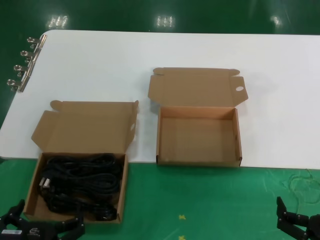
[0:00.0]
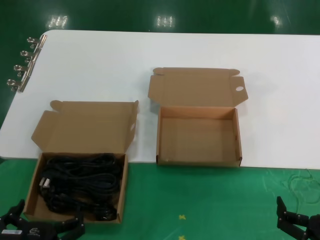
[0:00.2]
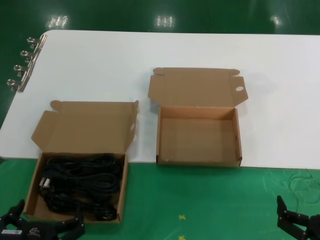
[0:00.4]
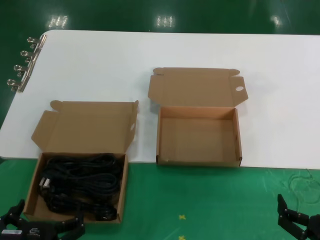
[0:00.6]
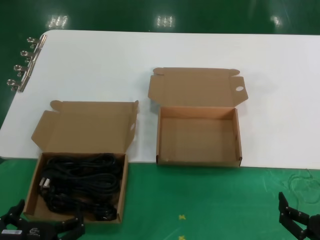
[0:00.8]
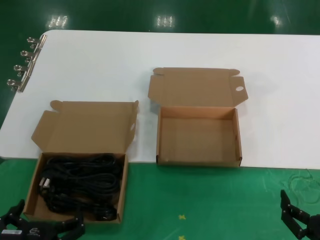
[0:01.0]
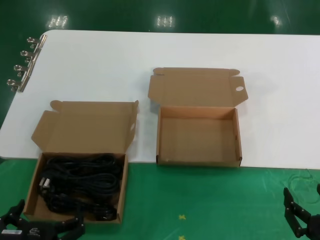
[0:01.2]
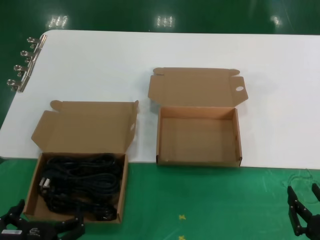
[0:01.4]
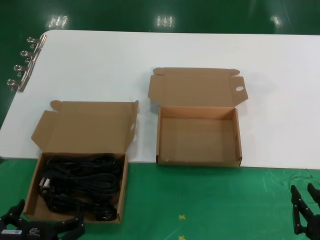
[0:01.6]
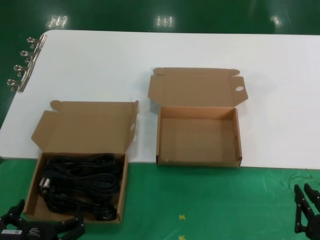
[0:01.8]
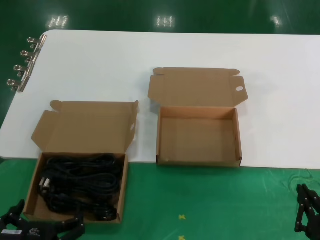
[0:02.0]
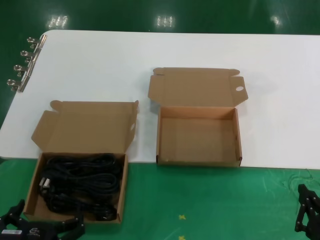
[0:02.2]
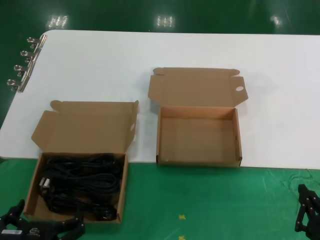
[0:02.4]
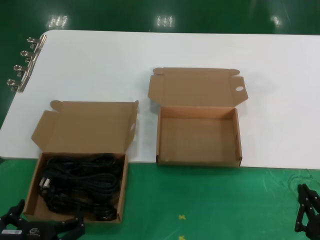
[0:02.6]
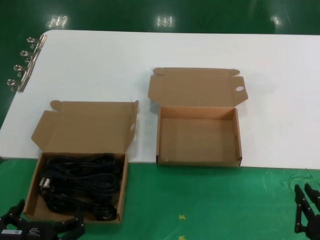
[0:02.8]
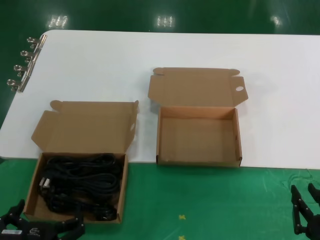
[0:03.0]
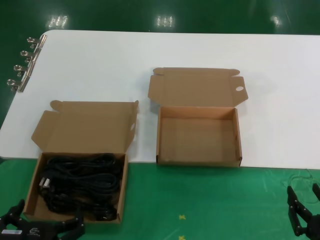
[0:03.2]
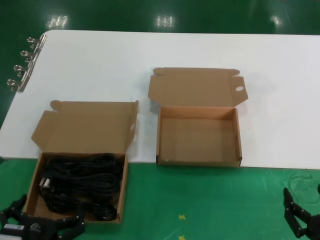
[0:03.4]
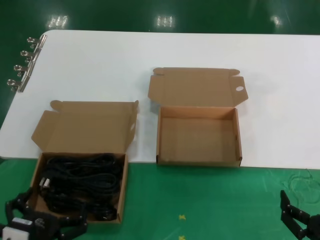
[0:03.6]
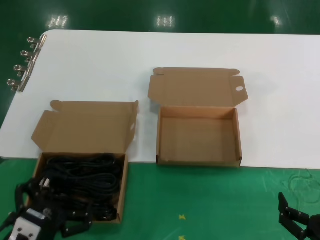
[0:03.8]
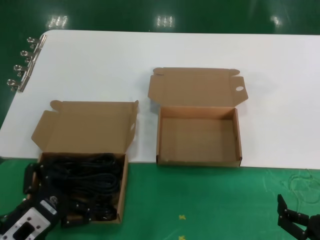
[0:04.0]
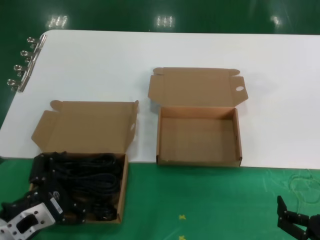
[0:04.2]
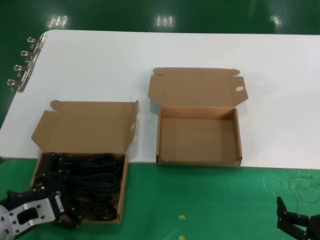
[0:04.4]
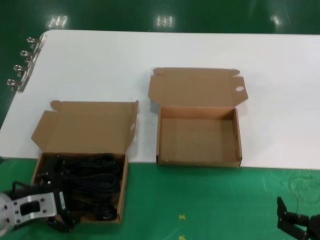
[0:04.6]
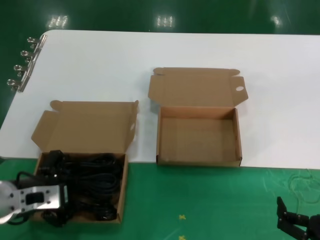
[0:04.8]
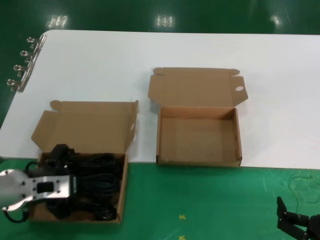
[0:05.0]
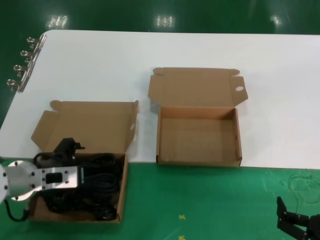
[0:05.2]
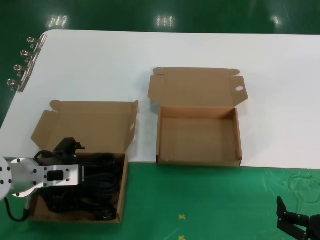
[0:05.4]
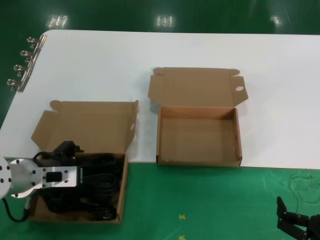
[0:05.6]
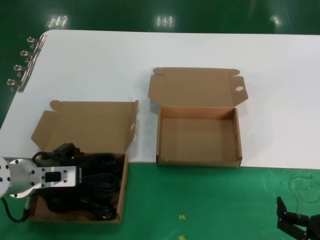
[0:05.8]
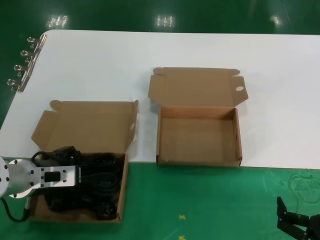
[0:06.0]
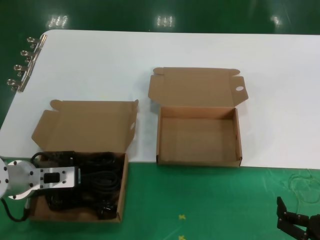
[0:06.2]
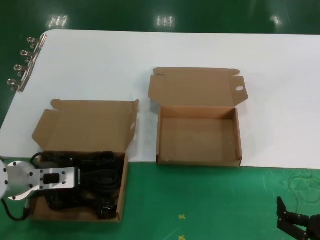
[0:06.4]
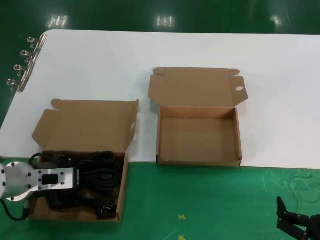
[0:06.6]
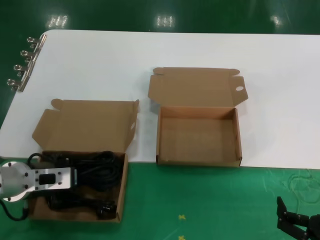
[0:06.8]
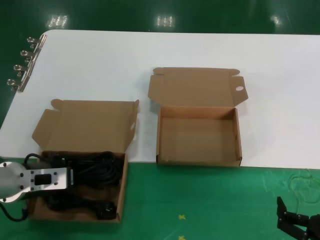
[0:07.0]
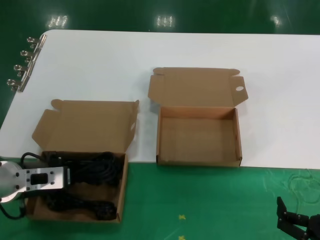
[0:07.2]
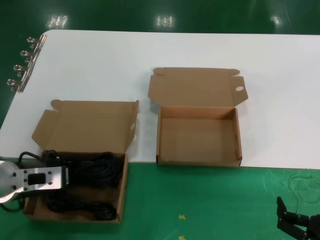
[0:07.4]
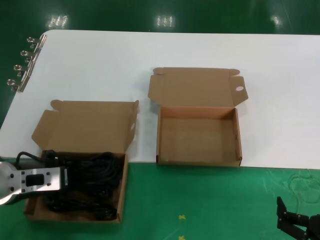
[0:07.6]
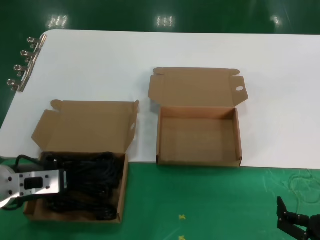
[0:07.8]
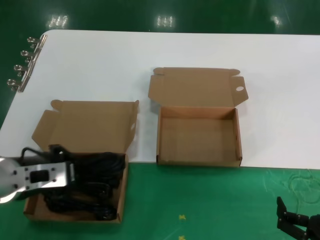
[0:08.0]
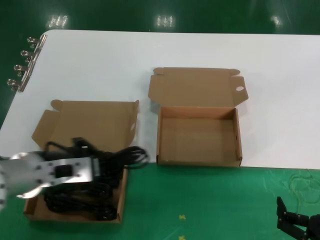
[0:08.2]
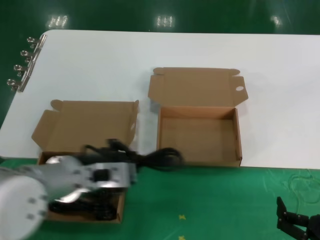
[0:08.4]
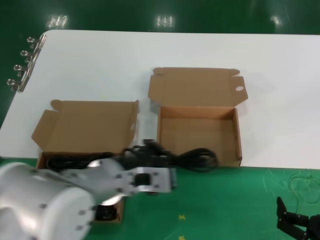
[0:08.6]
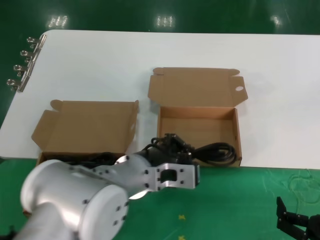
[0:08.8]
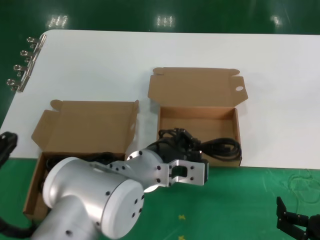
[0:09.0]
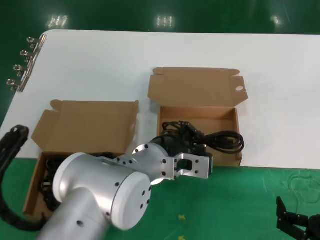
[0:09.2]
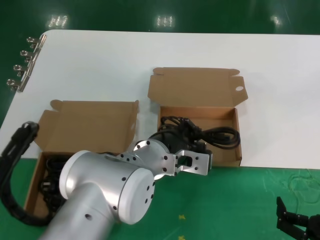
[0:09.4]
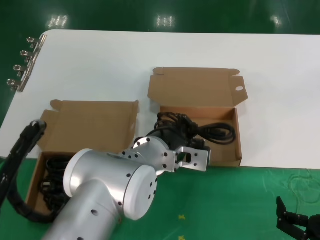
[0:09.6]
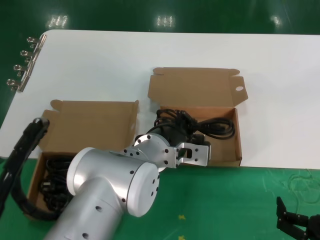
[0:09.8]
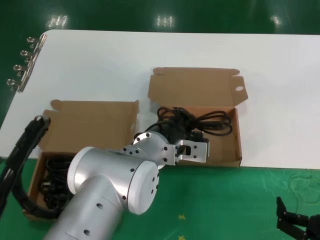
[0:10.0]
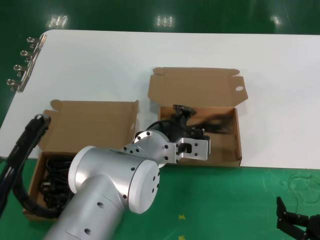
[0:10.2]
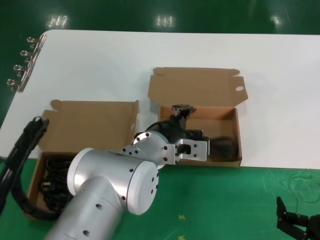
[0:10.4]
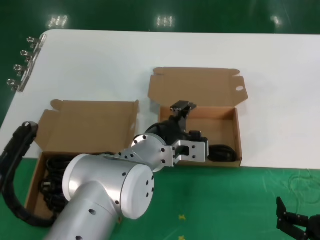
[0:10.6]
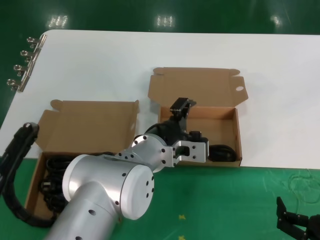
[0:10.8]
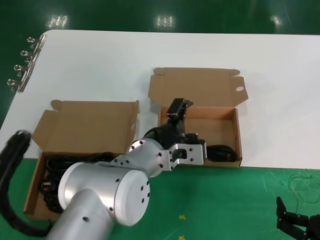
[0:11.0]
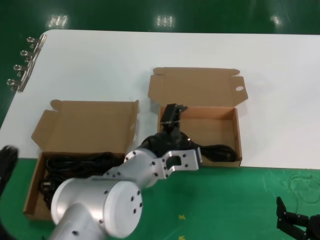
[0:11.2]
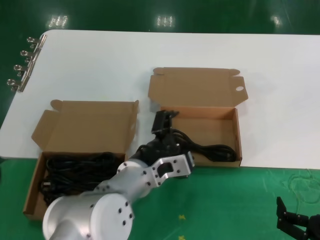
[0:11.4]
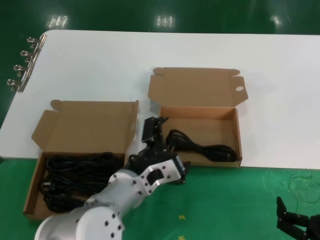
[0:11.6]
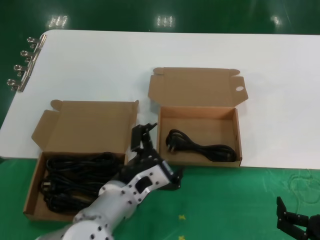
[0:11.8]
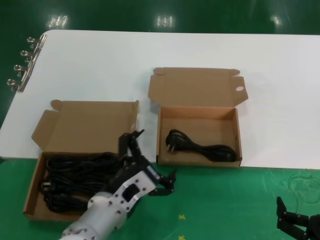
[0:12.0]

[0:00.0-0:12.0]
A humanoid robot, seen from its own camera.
Task of the whole recording: take the parts from the box containing them and put them into an empty box.
Step, 0:00.0 to 0:07.0: Grasp the data cable.
Step, 0:07.4 to 0:11.4: Place the data cable in the another box.
0:00.0 to 0:03.0: Neither hand changes place.
0:03.0 to 0:04.4: The left hand shifts about 15 cm upward, forward and to the left.
0:04.4 to 0:06.0: The left hand shifts some 10 cm forward and upward.
0:06.0 to 0:07.6: The left hand is displaced backward by roughly 5 cm.
0:07.6 to 0:09.0: The left hand travels to the right by about 25 cm.
0:09.0 to 0:10.4: The left hand travels forward by some 5 cm.
0:10.4 to 0:12.0: The left hand is displaced downward, to the left and backward by roughly 15 cm.

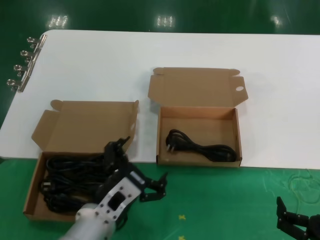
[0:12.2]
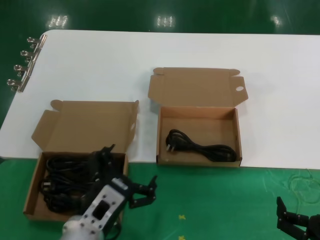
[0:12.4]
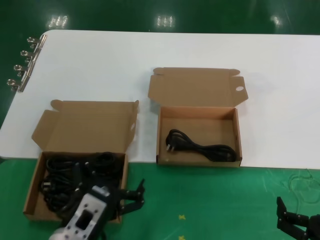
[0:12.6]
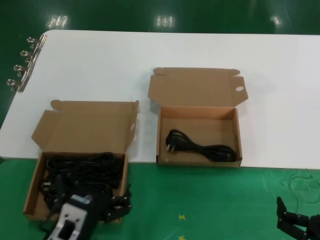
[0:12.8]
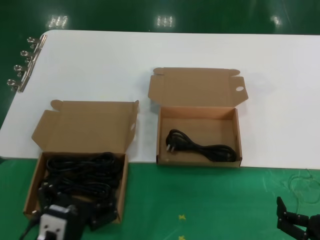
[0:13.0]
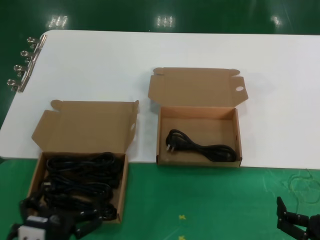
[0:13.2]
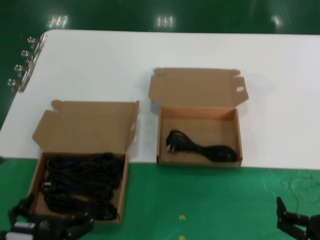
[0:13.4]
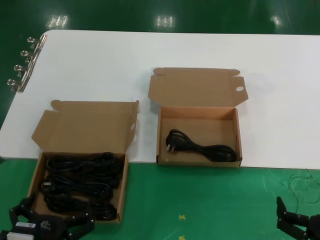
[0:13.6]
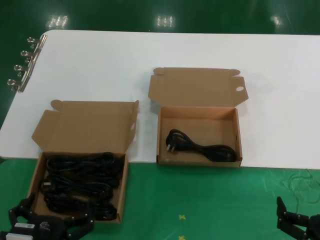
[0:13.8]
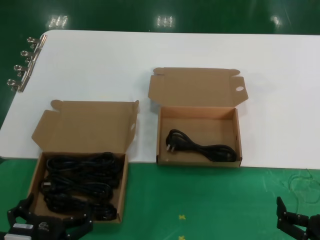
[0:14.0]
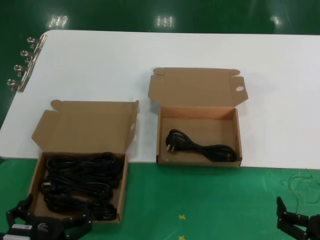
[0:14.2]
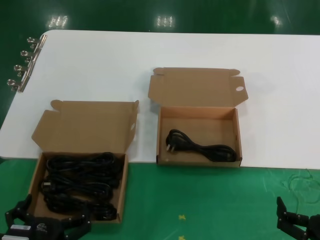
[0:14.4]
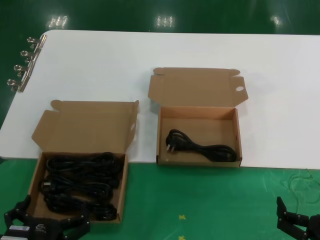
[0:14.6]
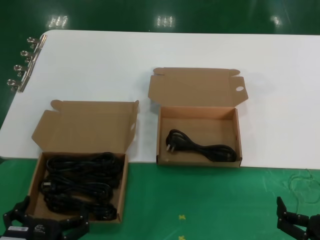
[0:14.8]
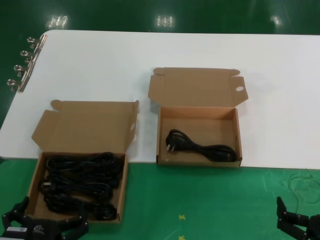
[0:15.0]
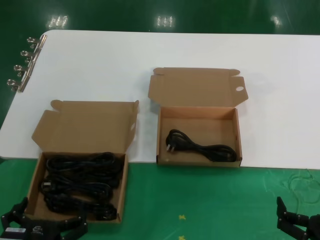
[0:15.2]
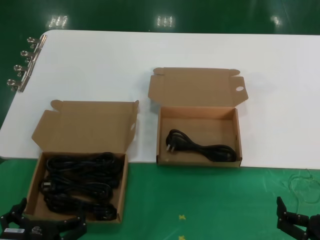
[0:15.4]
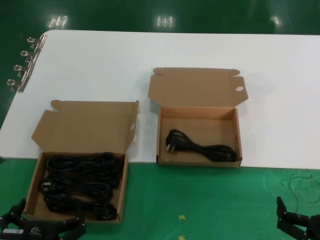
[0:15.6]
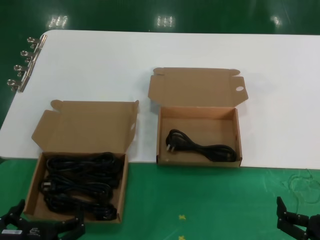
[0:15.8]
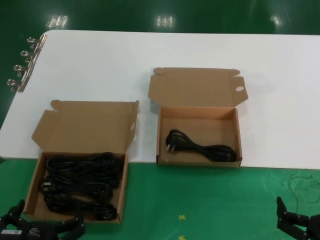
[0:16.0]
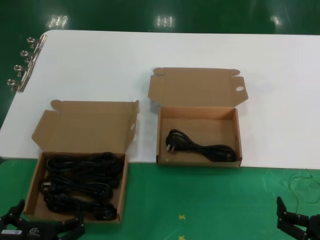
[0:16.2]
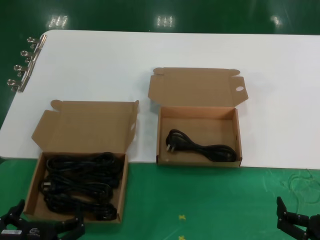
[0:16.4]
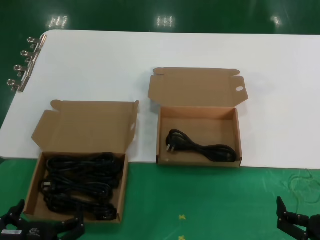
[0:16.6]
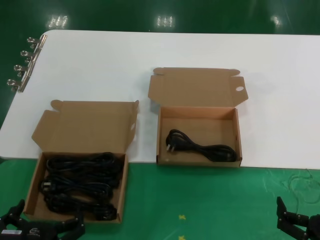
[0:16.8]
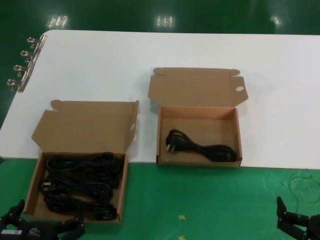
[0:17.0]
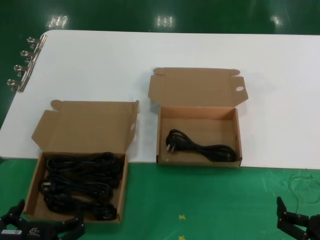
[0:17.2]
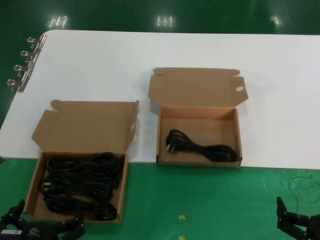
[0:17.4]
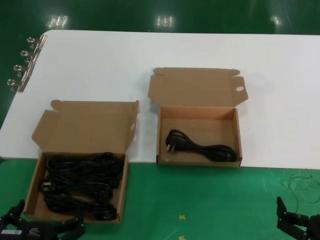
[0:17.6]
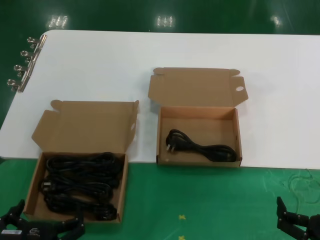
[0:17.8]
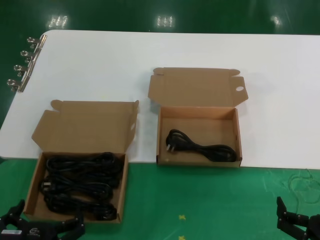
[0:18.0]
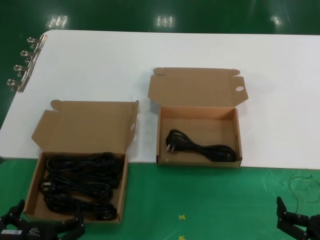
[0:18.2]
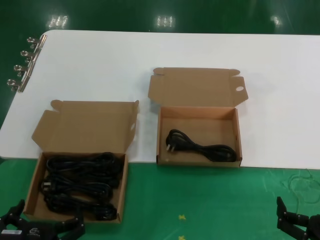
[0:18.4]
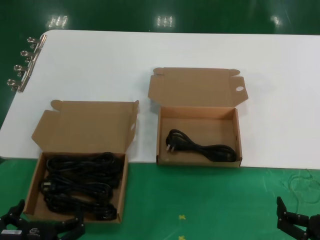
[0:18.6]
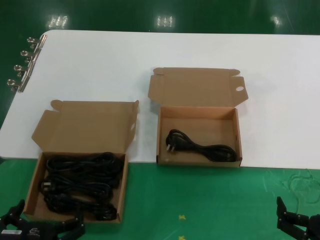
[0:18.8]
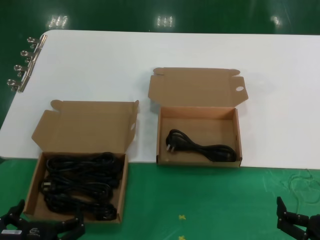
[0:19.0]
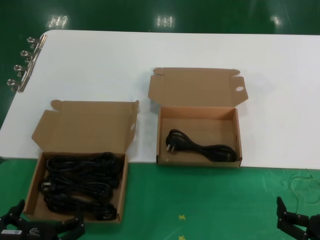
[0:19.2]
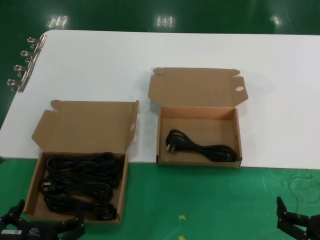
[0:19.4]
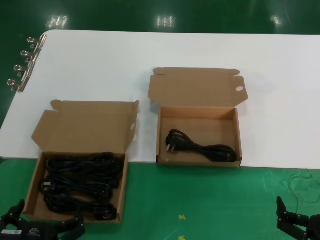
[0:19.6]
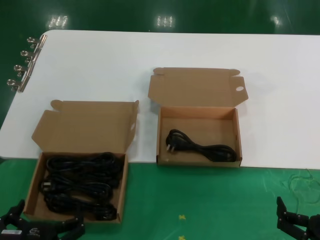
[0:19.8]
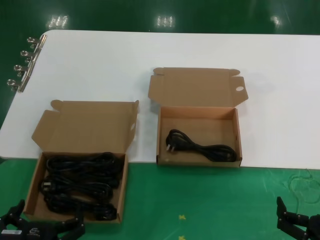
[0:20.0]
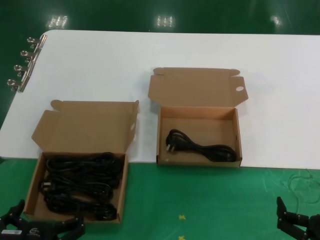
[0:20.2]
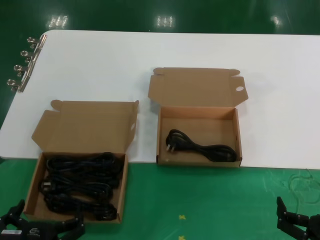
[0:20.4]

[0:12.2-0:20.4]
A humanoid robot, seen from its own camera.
Task of the whole recording: take the parts from the box containing them and put them into an empty box.
0:12.2 to 0:13.8: The left hand heads backward, to the left and downward, covering roughly 15 cm.
0:13.8 to 0:20.4: Both hands stay about where they are.
